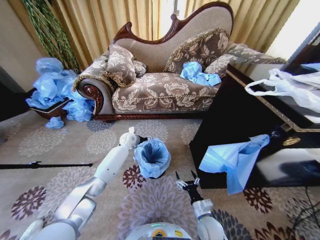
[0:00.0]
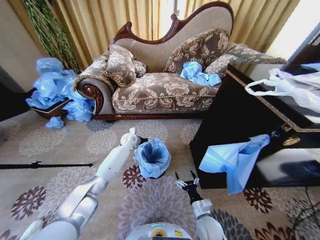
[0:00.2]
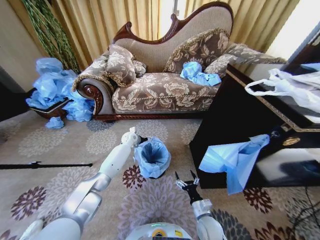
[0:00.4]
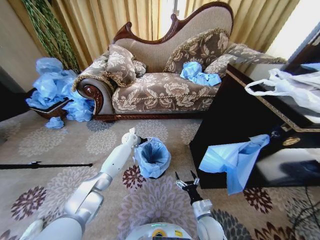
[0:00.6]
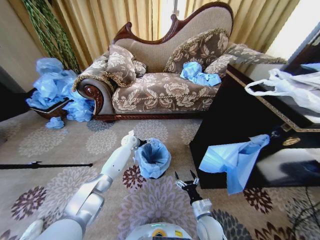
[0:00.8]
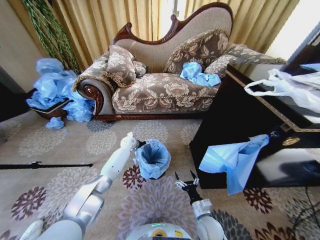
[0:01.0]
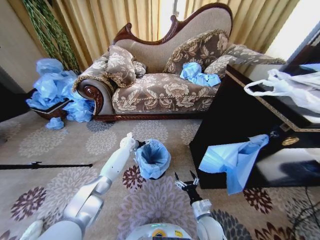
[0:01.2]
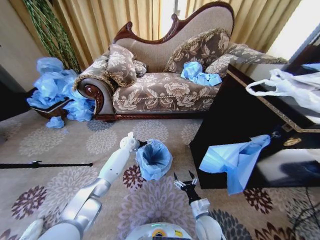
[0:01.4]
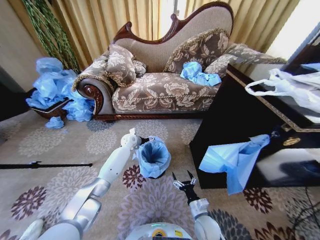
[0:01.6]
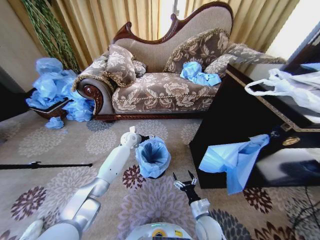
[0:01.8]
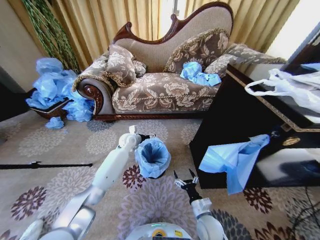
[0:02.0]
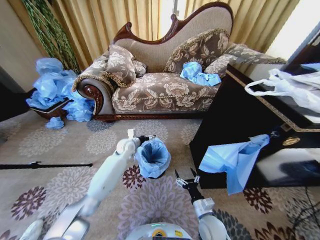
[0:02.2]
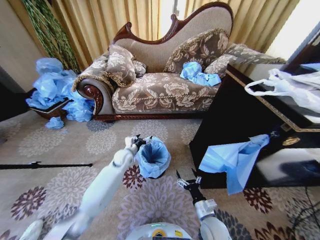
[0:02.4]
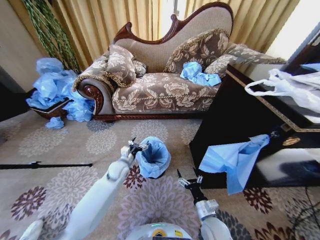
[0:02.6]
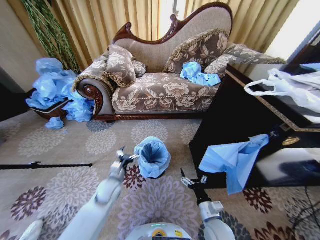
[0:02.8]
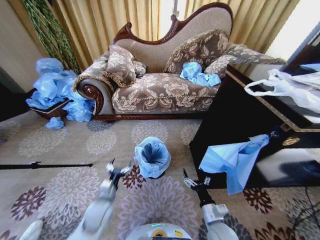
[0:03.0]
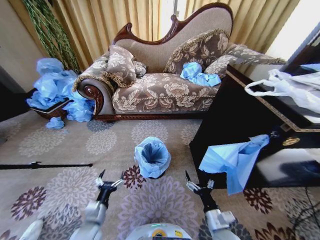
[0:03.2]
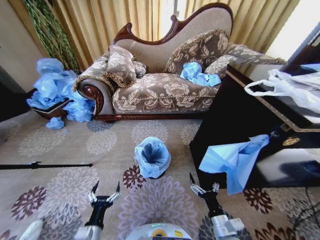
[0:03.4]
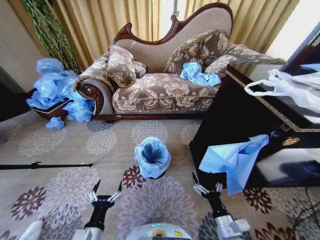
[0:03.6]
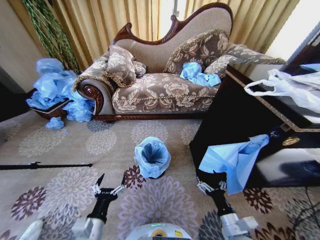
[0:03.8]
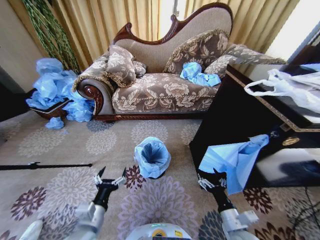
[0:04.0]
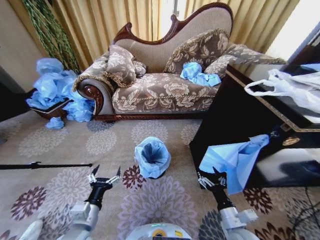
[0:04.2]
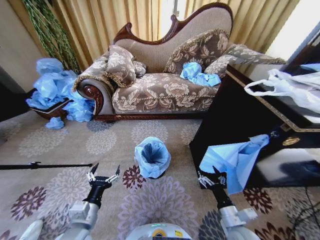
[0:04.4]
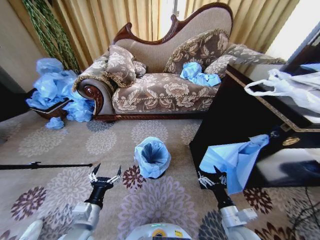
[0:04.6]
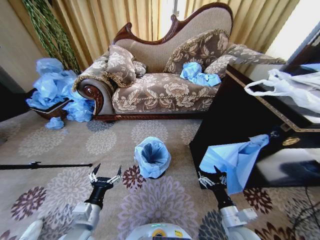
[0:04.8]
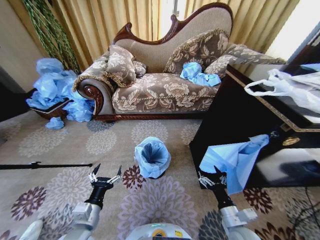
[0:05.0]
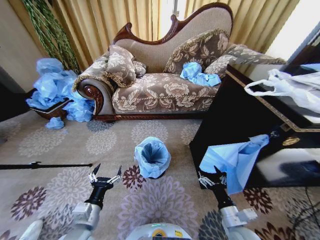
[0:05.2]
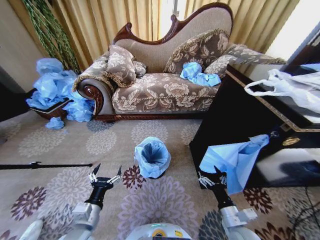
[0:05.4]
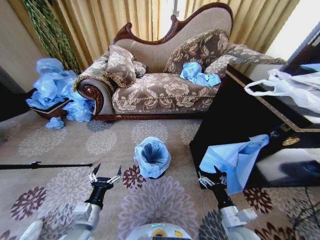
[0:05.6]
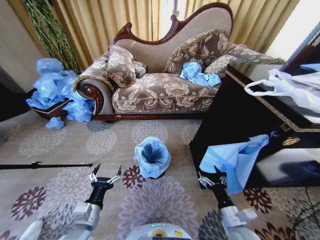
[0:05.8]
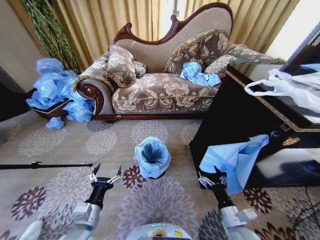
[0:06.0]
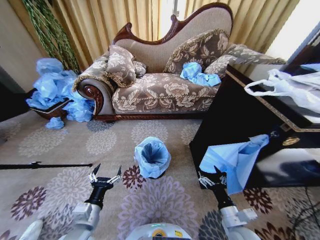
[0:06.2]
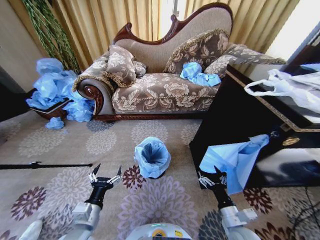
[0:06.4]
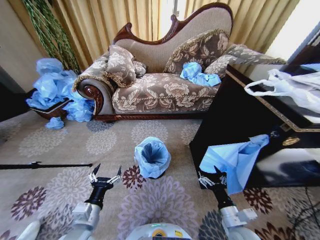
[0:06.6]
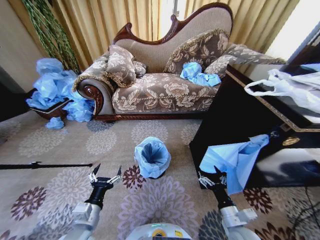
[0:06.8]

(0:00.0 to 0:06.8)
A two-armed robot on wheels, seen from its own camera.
Task of the whole recording: Place a garbage bag over the trash bin.
0:01.4 - 0:02.8: The right gripper is displaced upward by some 5 cm; the left gripper travels backward by roughly 25 cm.
0:02.8 - 0:04.0: The right gripper shifts roughly 10 cm to the right and upward; the left gripper travels backward and upward by some 20 cm.
0:04.0 - 0:05.4: The grippers stay close to where they were, moving slightly.
0:05.4 - 0:06.8: The two grippers keep their place.

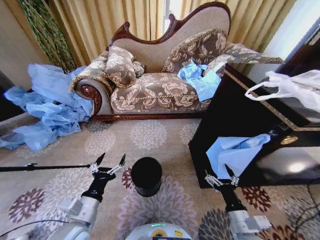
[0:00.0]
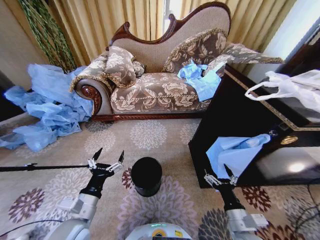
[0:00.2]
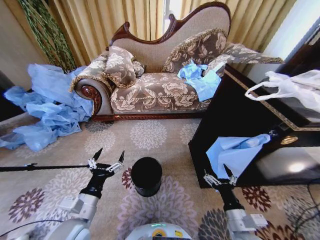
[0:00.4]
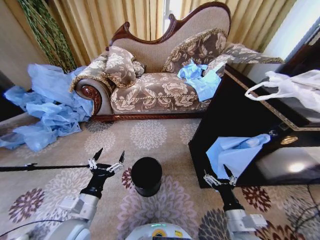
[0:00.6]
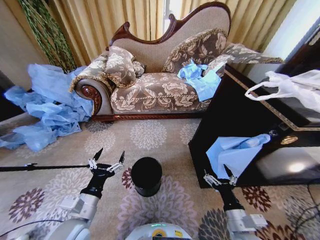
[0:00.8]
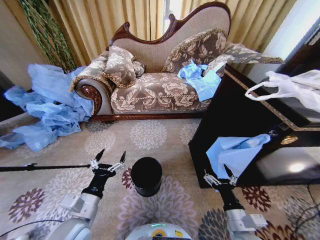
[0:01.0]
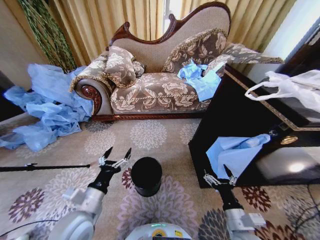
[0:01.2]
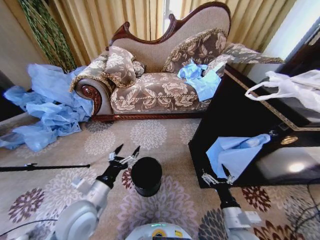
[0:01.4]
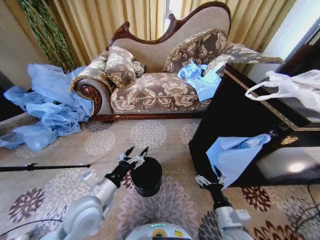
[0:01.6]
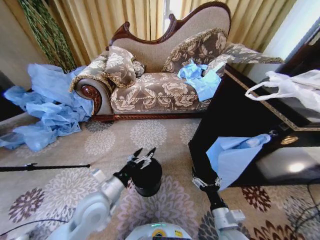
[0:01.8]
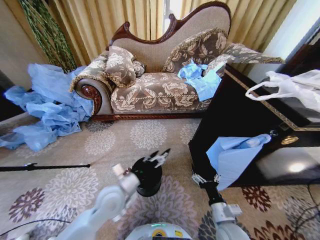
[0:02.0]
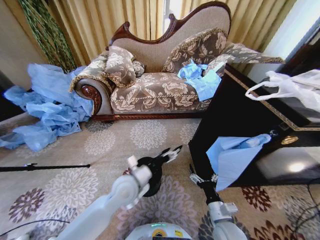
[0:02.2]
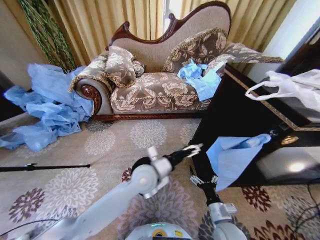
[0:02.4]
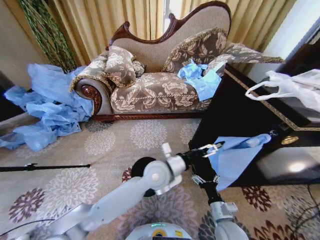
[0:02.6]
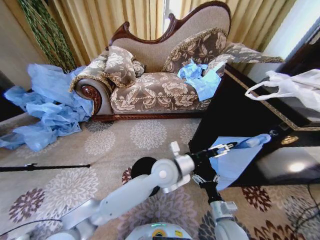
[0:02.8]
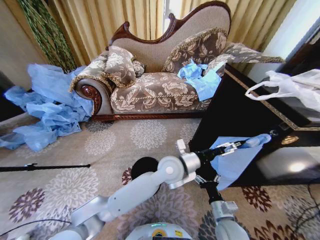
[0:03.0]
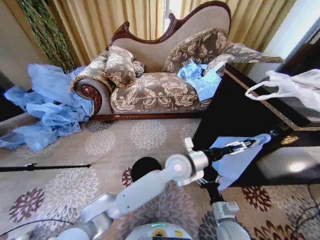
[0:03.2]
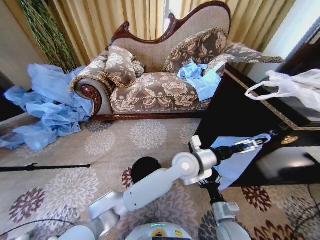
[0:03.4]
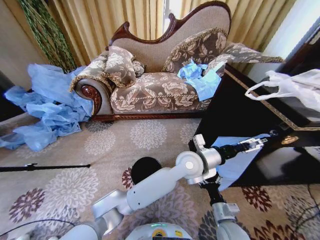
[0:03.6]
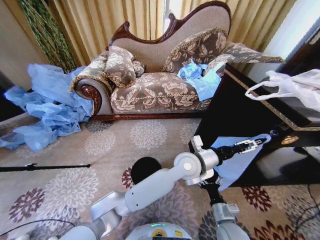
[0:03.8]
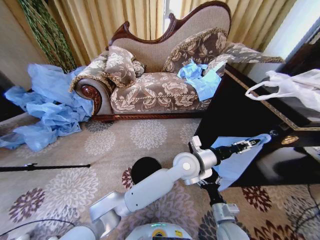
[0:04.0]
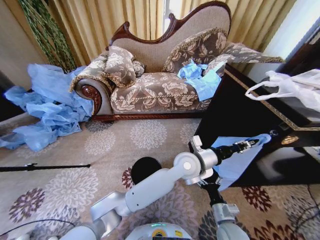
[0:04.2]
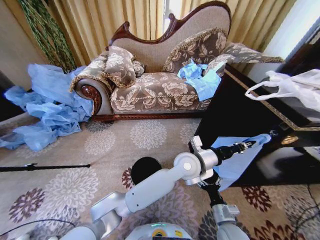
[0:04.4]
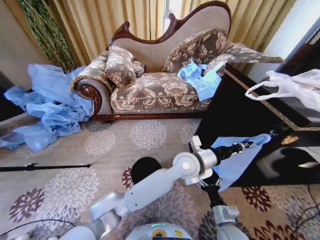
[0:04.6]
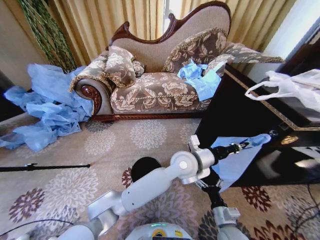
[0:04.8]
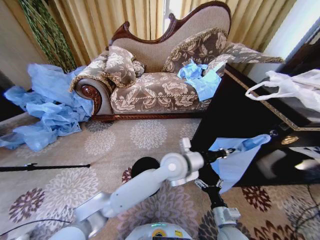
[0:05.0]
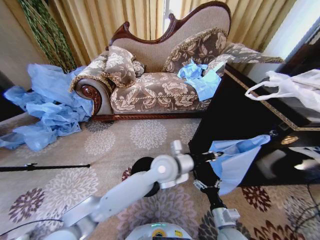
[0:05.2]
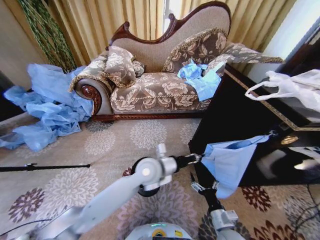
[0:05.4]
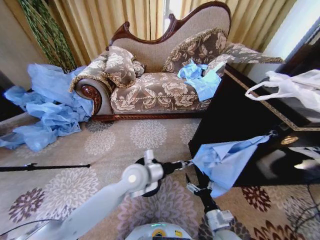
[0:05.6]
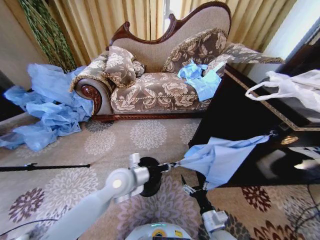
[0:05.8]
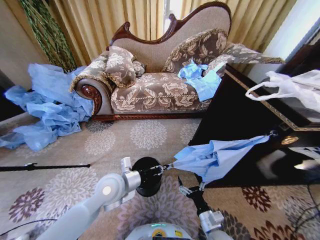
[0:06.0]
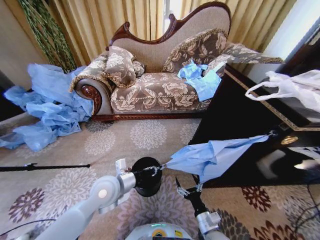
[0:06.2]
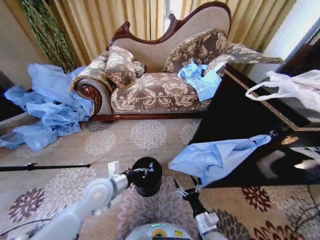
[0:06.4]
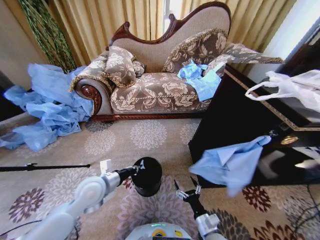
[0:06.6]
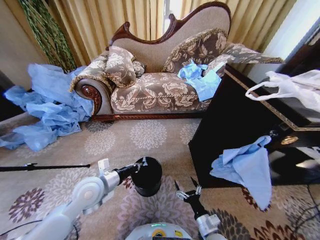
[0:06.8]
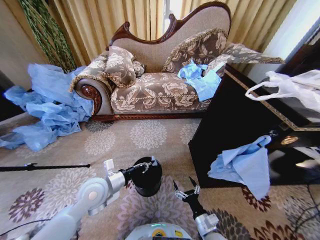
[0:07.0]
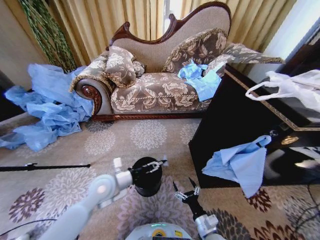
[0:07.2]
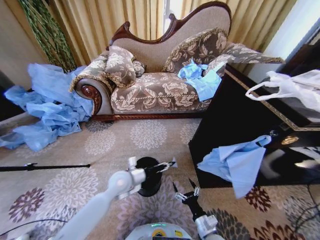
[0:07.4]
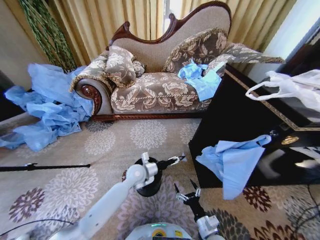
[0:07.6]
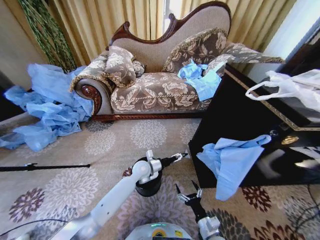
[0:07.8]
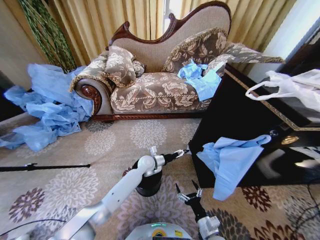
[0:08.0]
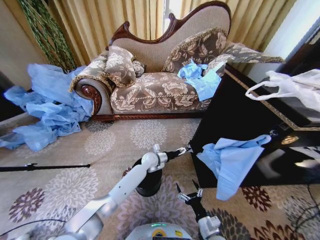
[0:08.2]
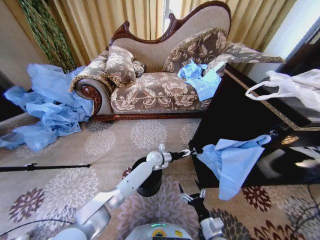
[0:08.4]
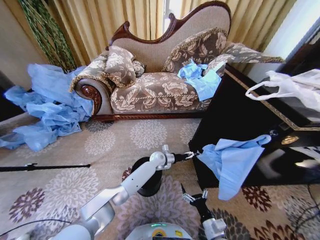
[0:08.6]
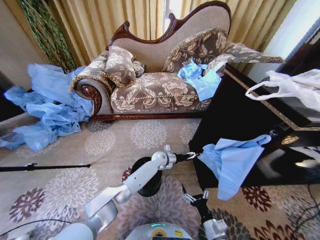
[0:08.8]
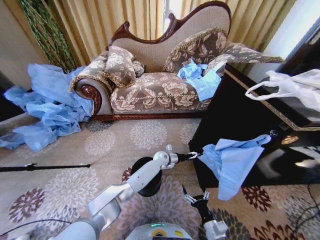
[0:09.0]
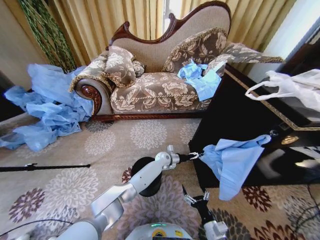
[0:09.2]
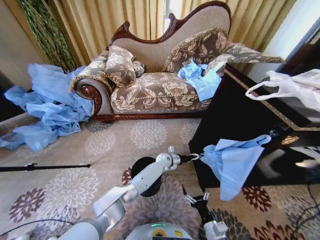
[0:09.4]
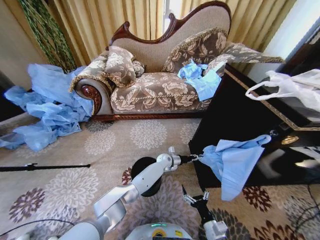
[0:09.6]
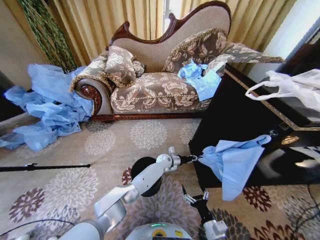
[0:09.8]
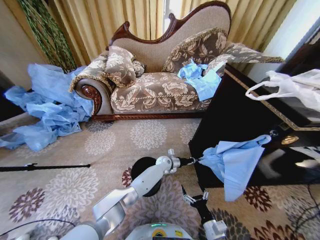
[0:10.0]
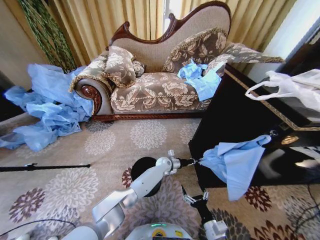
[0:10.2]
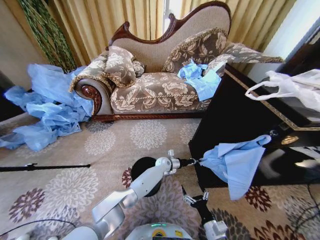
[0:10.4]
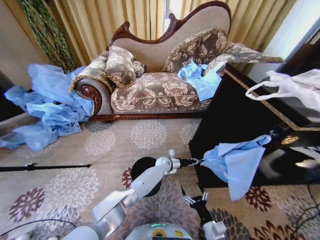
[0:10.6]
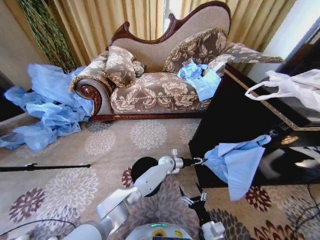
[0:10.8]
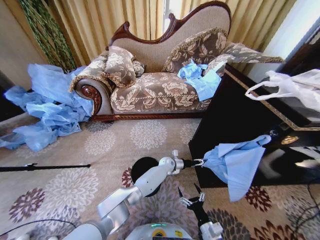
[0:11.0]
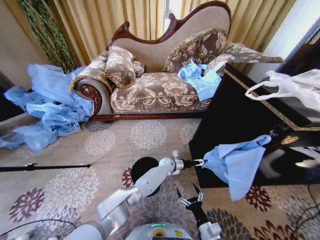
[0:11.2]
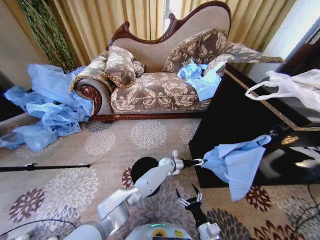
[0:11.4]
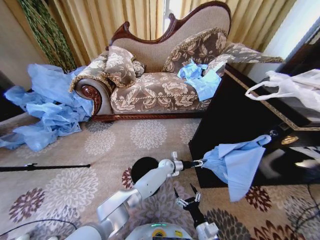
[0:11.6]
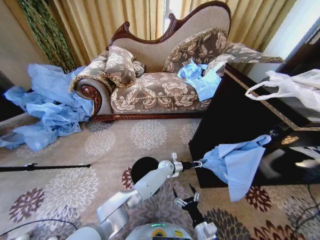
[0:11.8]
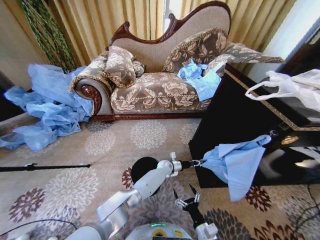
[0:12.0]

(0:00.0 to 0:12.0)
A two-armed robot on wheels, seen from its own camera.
Task of the whole recording: Place a garbage bag over the trash bin.
0:01.6 - 0:03.0: The right gripper changes place by roughly 5 cm. The left gripper heads to the right and forward, covering about 30 cm.
0:03.0 - 0:04.4: The left gripper is displaced to the right by about 5 cm, and closes.
0:04.4 - 0:06.0: The left gripper heads to the left, covering roughly 25 cm.
0:06.0 - 0:07.6: The left gripper heads forward, downward and to the right, covering some 15 cm, and opens its fingers.
0:07.6 - 0:09.0: The left gripper goes roughly 20 cm forward, to the right and downward.
0:09.0 - 0:10.4: The left gripper closes.
0:10.4 - 0:12.0: The left gripper opens, then closes once more.

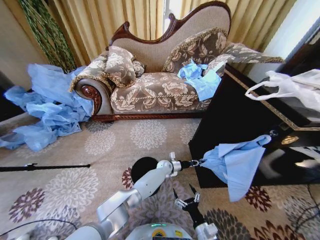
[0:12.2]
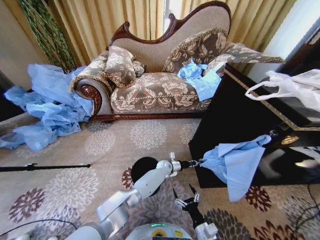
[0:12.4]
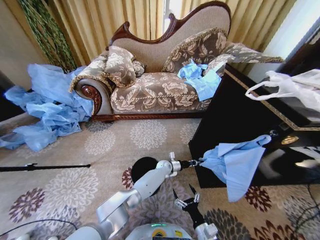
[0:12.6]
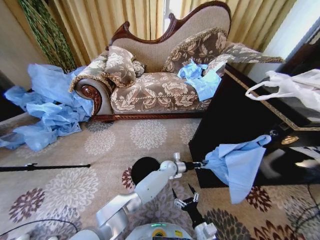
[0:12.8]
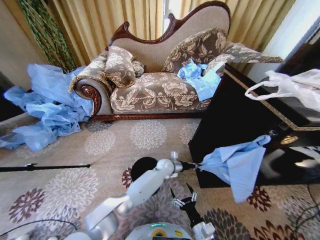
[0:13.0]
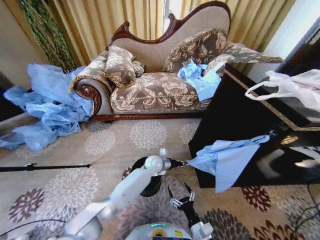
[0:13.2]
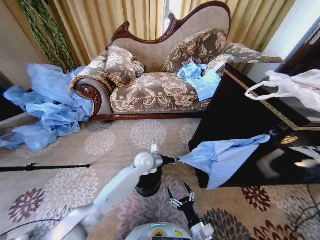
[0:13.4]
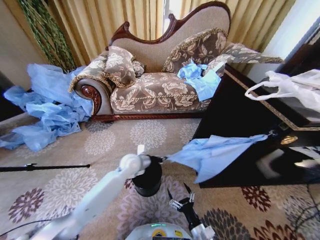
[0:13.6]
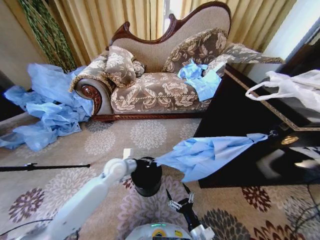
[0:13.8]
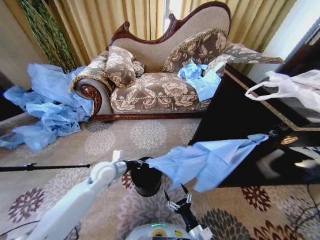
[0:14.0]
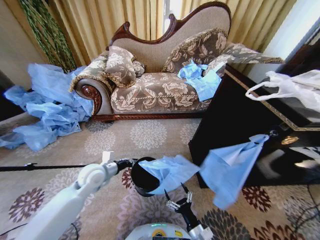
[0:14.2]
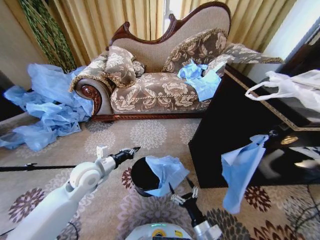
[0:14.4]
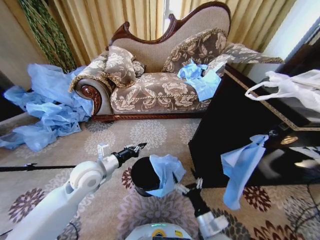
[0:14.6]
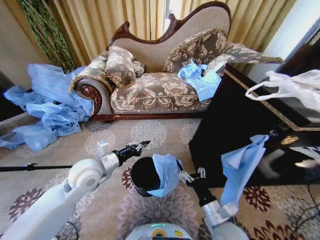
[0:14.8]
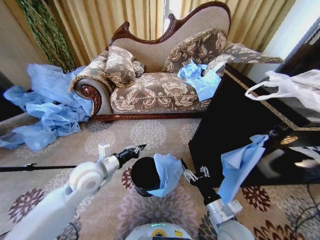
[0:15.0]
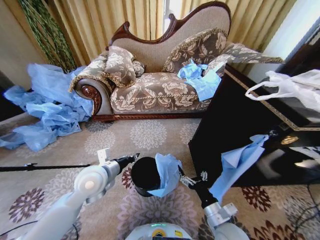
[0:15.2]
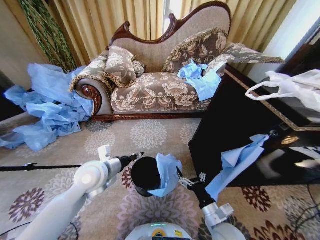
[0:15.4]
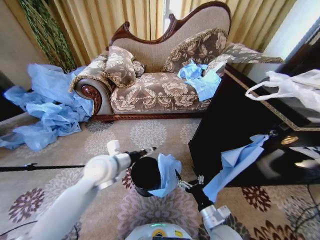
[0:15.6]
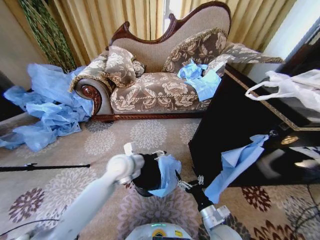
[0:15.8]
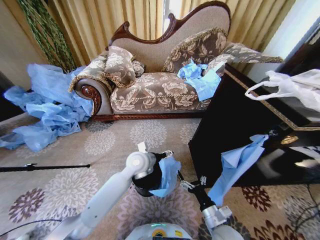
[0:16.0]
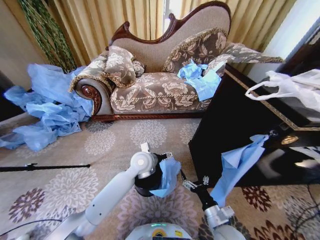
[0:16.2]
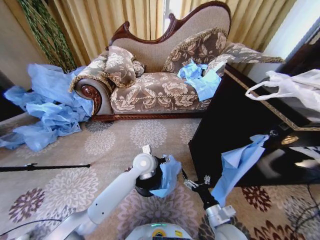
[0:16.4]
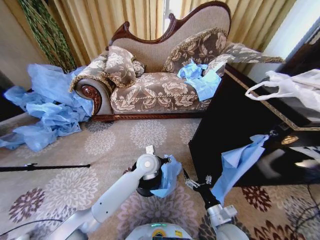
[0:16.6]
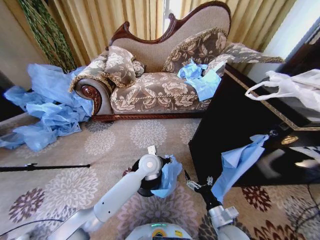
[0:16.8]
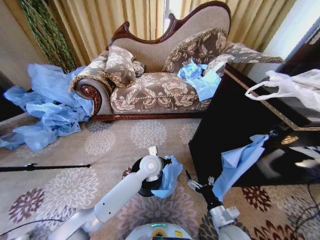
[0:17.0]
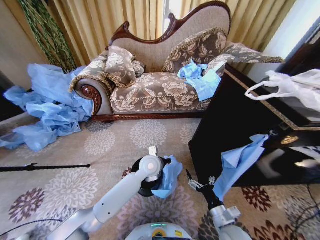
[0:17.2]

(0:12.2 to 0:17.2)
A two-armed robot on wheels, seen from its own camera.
Task of the whole recording: Place a garbage bag over the trash bin.
0:12.2 - 0:13.8: The left gripper heads to the left, upward and backward, covering some 30 cm.
0:13.8 - 0:15.6: The left gripper goes approximately 15 cm upward and backward, and opens its fingers; the right gripper goes about 10 cm upward.
0:15.6 - 0:17.2: The left gripper moves to the right, downward and forward, about 20 cm, and closes.
